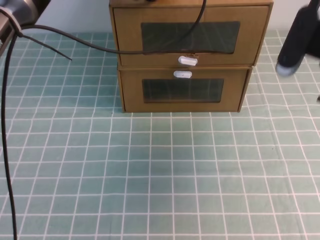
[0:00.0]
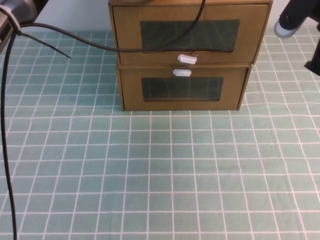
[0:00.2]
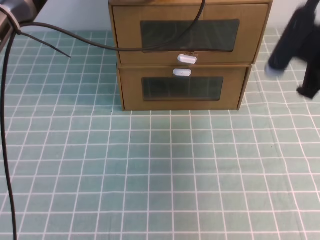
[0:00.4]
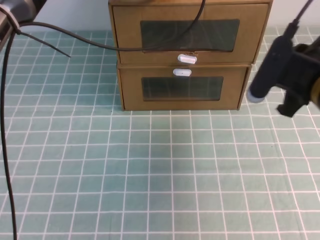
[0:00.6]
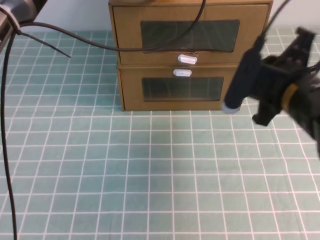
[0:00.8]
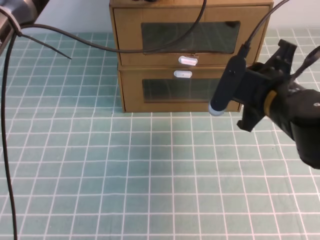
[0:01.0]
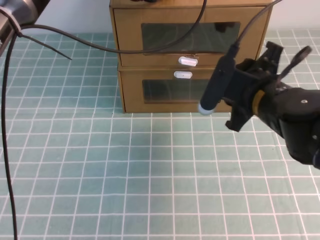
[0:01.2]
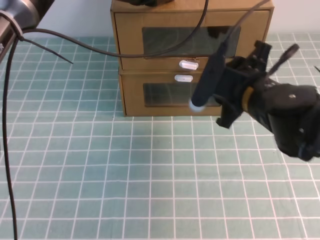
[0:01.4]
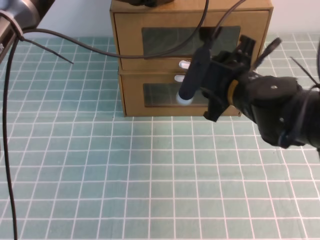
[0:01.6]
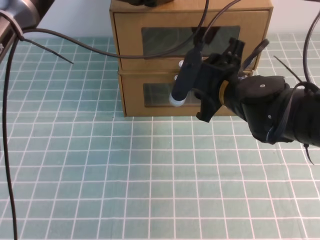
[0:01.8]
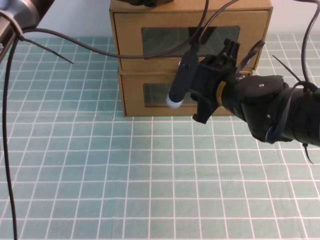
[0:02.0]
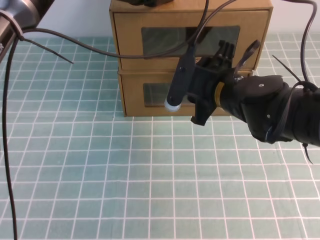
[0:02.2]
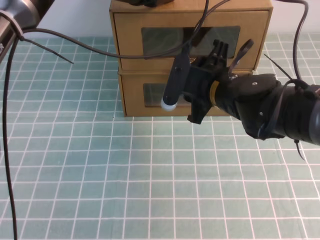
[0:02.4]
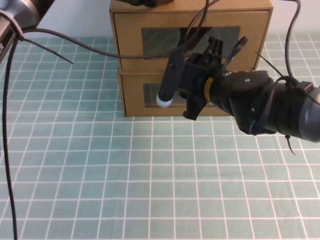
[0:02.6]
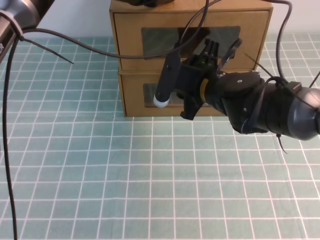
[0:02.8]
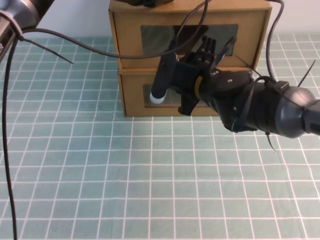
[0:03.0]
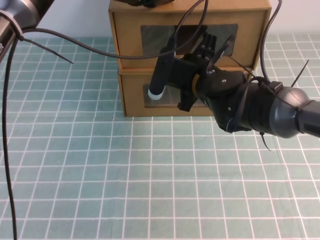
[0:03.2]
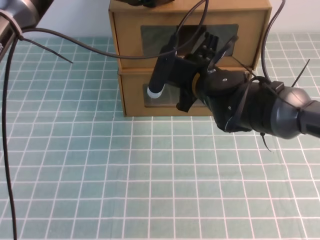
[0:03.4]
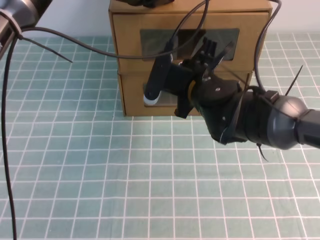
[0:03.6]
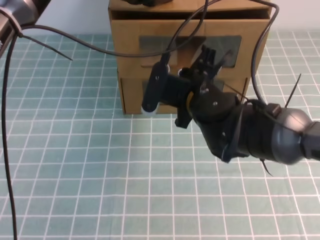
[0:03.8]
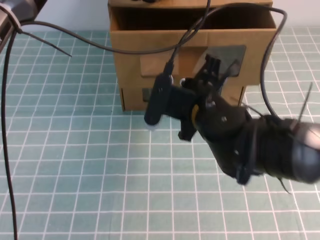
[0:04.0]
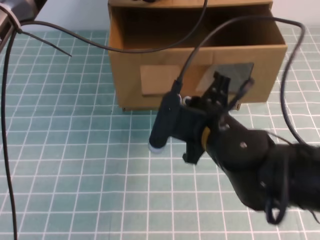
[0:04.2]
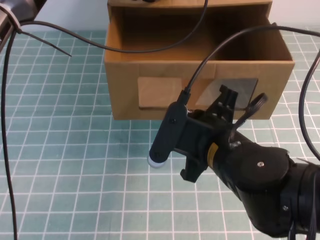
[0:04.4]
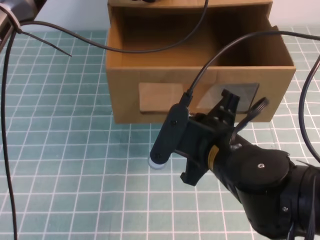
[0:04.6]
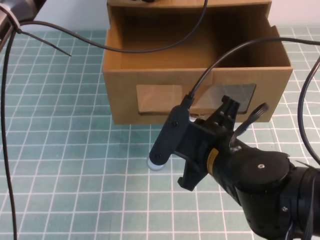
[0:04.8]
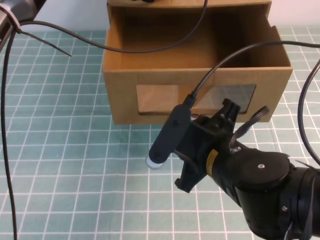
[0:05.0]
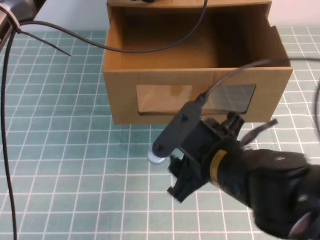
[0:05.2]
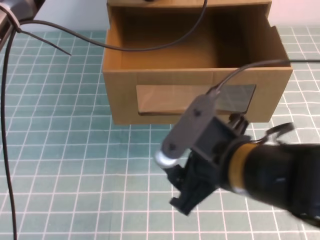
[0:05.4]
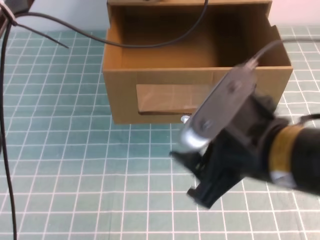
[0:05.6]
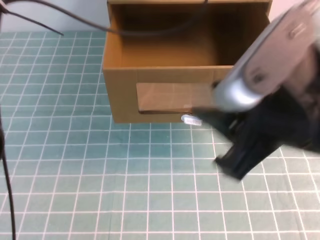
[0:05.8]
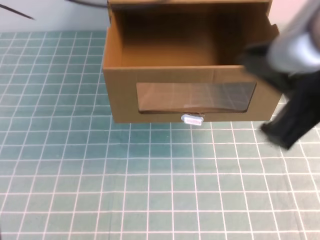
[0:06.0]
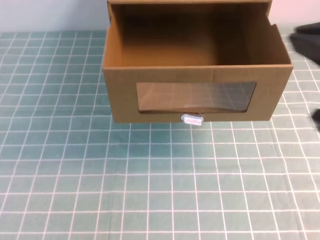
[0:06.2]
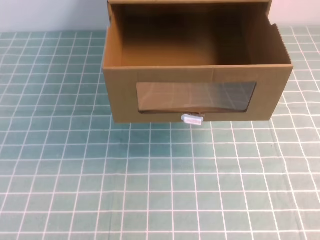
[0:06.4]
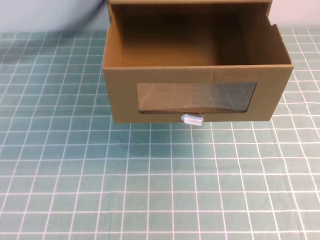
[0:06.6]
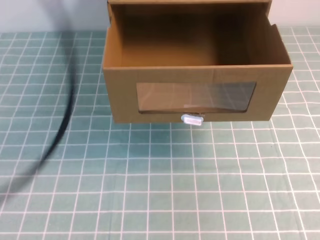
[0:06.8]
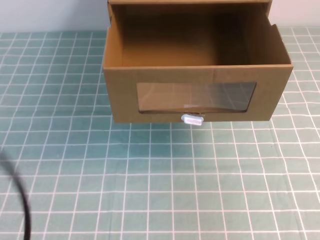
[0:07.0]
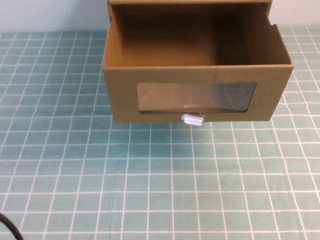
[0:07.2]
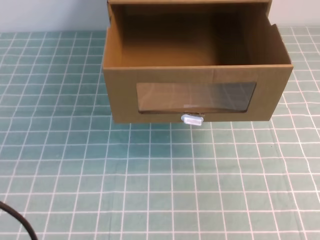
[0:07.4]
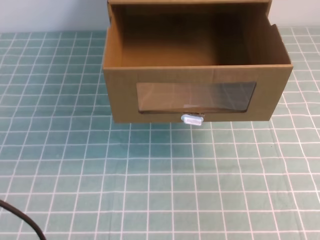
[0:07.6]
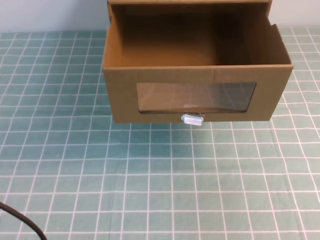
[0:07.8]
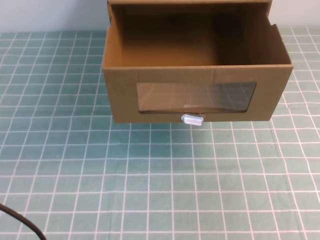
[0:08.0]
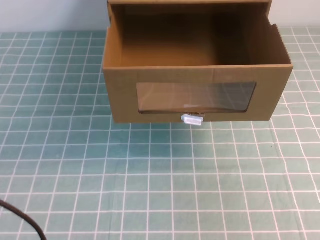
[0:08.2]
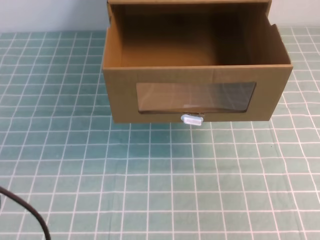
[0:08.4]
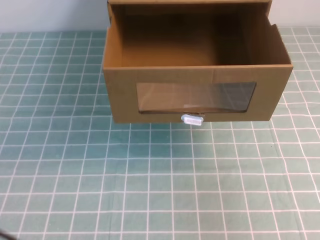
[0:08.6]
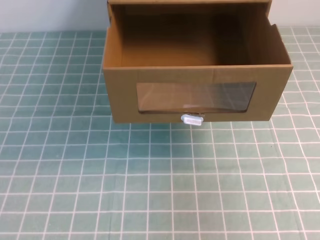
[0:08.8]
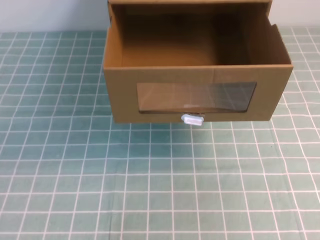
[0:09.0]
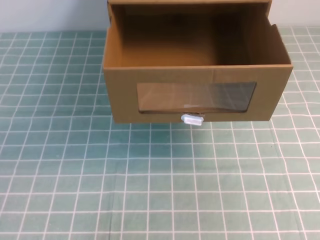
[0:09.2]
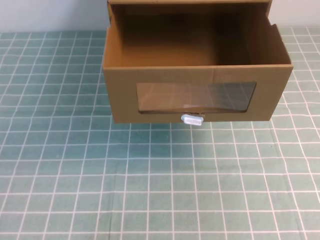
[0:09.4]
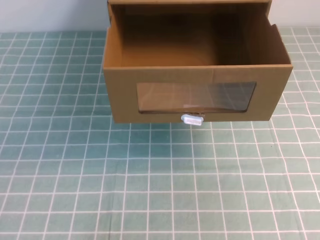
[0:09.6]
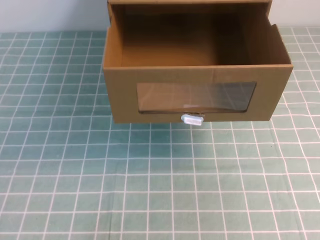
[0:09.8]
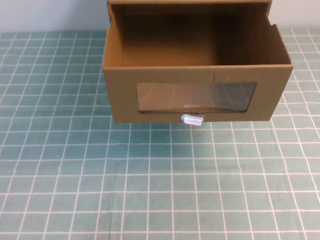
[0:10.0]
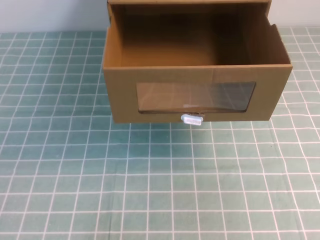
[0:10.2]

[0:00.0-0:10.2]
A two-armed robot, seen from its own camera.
Task of the whole recording: open the shoebox on the cyan tablecloth.
0:00.0 to 0:01.4: The right gripper heads to the left and downward, covering some 10 cm, and opens up.
0:01.4 to 0:03.0: The right gripper shifts about 10 cm to the left and forward.
0:03.0 to 0:04.4: The right gripper goes about 15 cm backward, and closes up.
0:04.4 to 0:05.8: The right gripper travels upward, backward and to the right by approximately 15 cm, and opens. The left gripper goes some 5 cm upward.
0:05.8 to 0:07.2: The right gripper travels to the right and backward by some 20 cm, and closes up. Meanwhile the left gripper heads backward and to the left, covering roughly 35 cm.

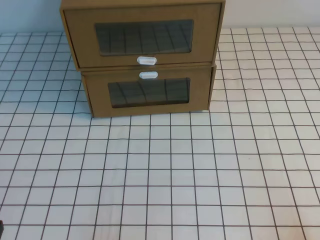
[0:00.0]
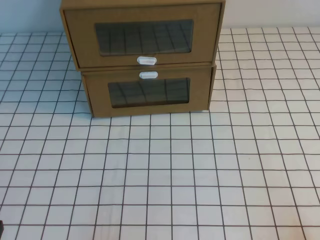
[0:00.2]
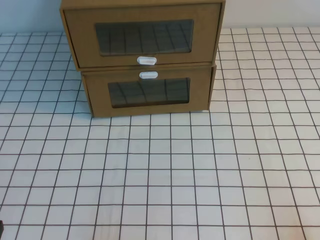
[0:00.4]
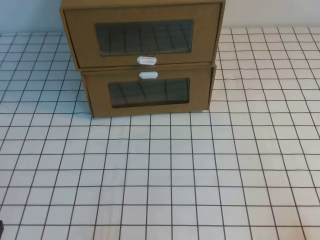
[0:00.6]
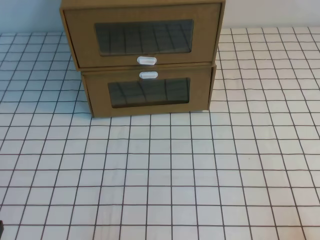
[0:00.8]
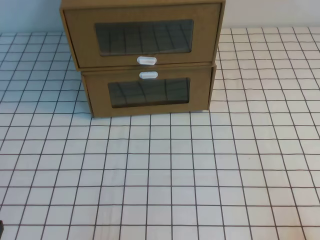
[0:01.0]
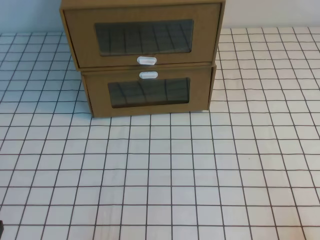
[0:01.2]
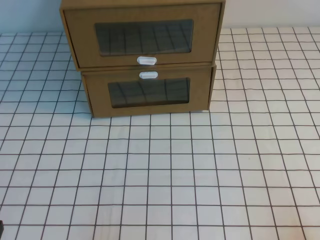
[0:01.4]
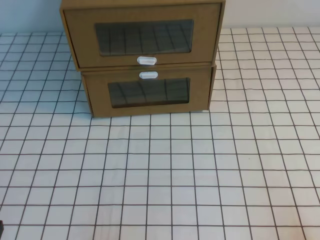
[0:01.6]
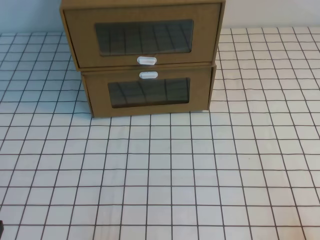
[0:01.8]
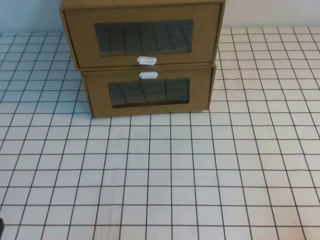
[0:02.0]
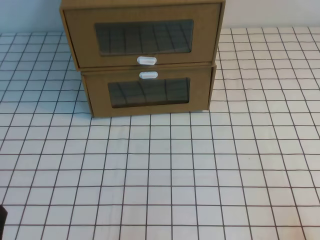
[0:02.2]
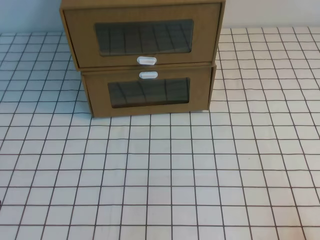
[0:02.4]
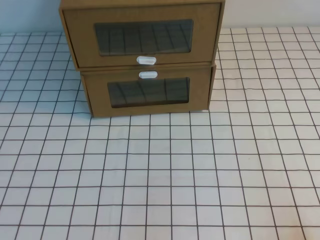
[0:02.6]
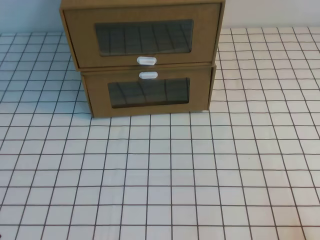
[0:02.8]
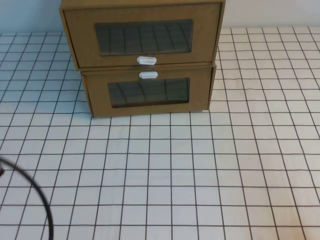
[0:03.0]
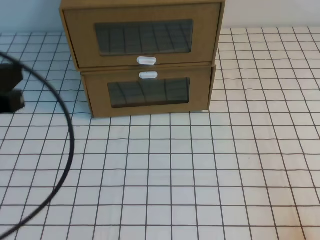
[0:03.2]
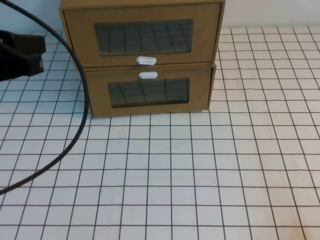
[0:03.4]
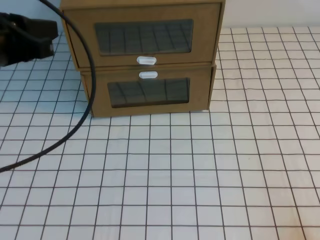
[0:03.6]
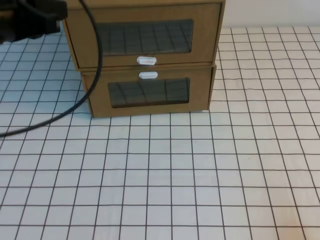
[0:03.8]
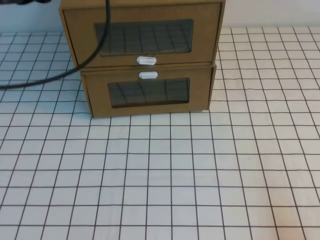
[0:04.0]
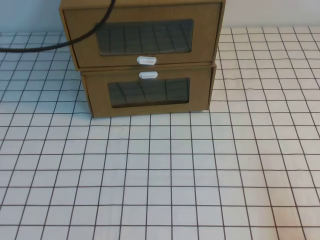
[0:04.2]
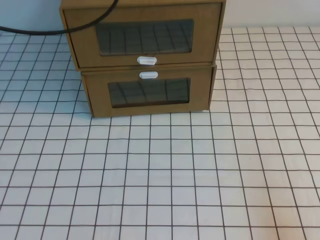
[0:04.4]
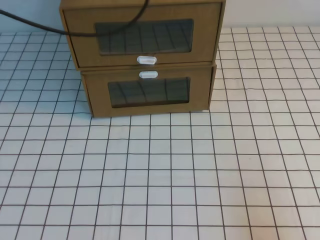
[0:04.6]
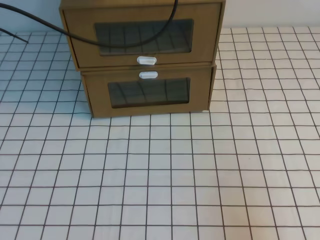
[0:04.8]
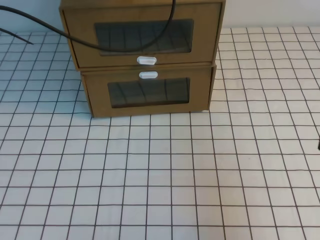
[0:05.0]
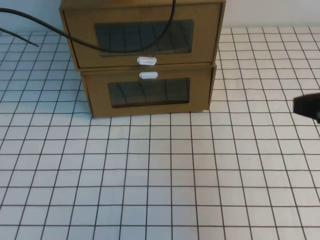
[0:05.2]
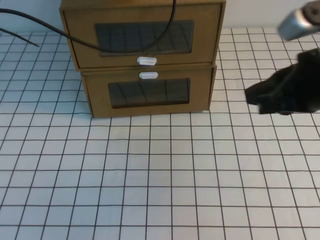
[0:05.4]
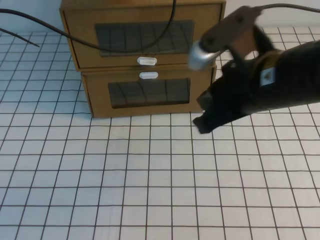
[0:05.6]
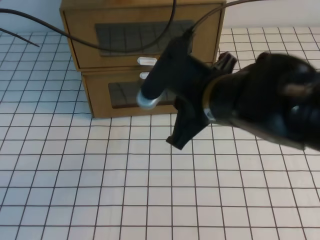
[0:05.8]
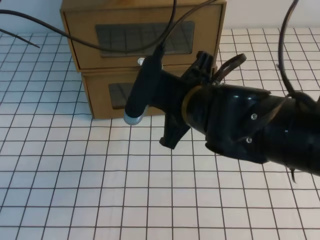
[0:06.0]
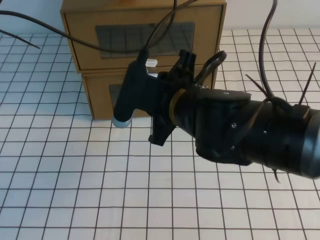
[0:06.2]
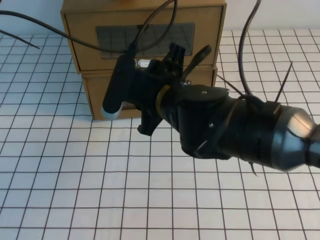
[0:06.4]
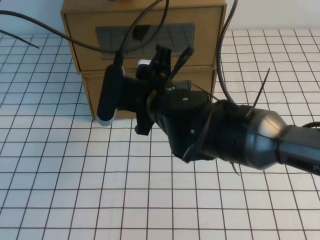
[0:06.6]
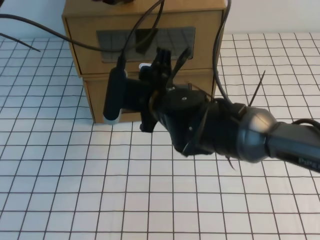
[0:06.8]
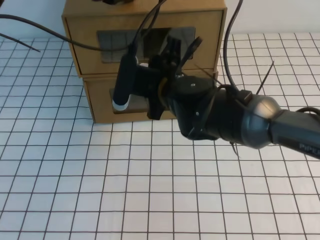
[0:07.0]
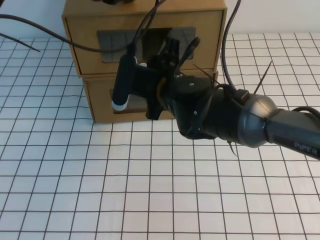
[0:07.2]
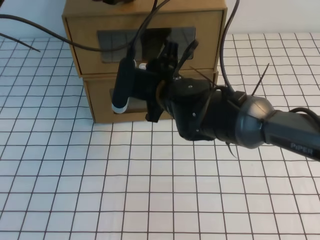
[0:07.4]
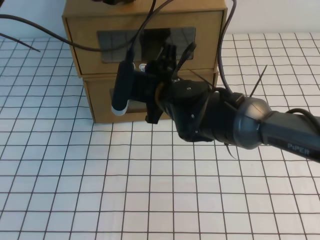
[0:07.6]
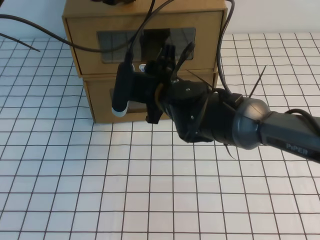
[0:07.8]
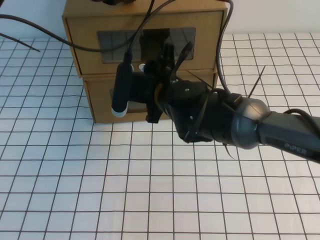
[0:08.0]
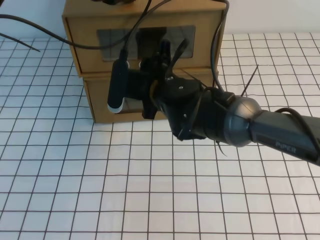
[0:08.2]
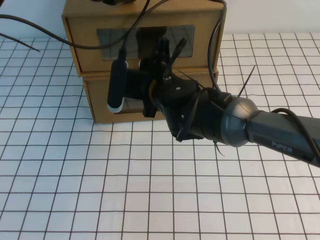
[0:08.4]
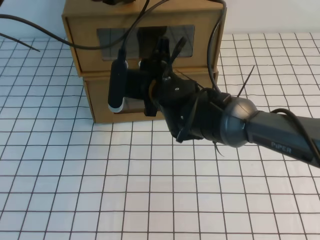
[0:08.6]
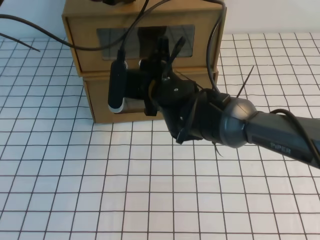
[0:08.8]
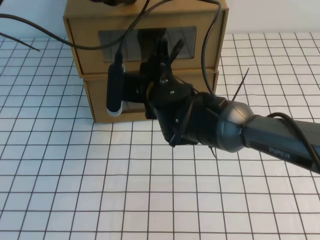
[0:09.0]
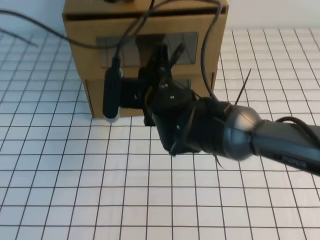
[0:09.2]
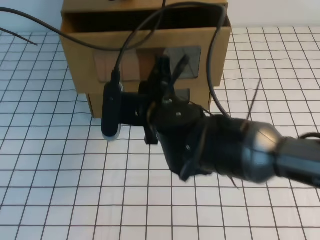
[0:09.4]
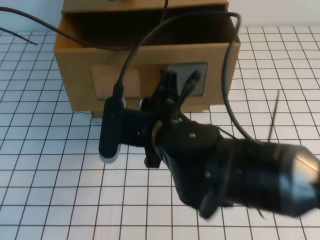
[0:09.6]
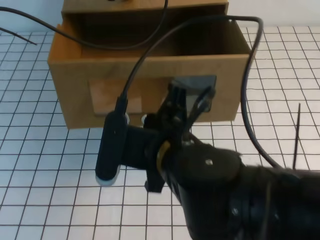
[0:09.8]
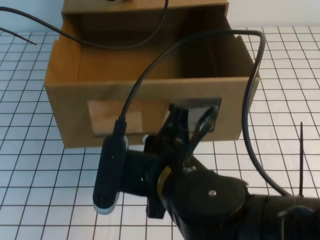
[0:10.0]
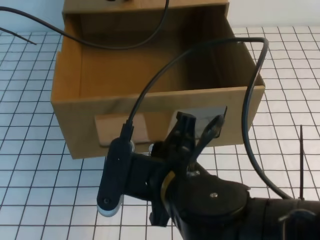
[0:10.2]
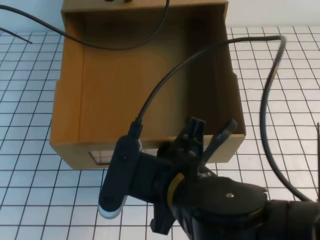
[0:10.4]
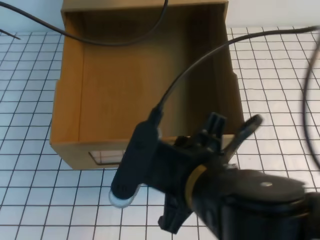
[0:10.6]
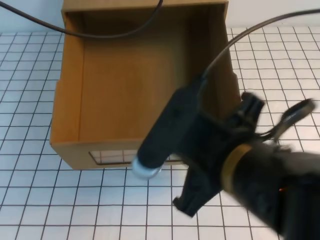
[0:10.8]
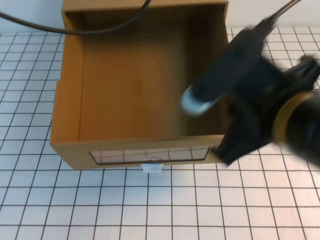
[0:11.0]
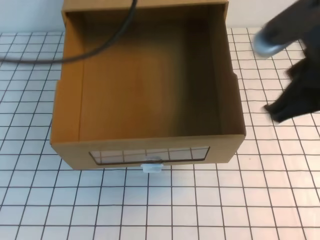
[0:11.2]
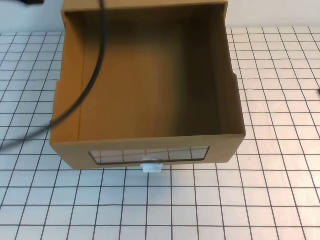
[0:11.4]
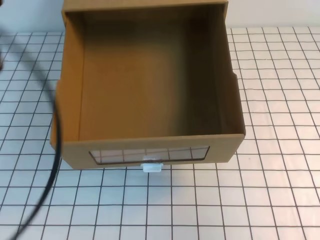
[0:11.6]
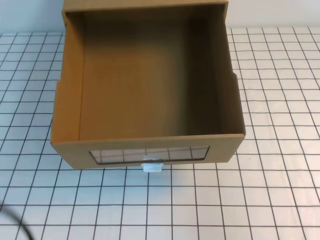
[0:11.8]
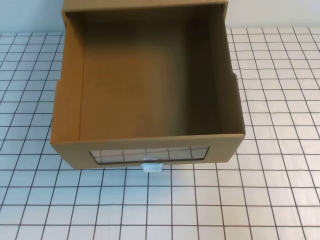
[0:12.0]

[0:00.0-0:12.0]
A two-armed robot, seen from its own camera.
Task of the whole recording: open the shoebox on the white tablecloth.
0:00.0 to 0:01.6: Both grippers stay put.
0:01.6 to 0:03.0: The left gripper travels upward by approximately 15 cm.
0:03.0 to 0:04.4: The left gripper travels forward and upward by some 30 cm.
0:04.4 to 0:06.0: The left gripper goes roughly 5 cm to the right, while the right gripper goes some 35 cm to the left and forward.
0:06.0 to 0:07.6: The right gripper is displaced forward and downward by roughly 10 cm, and opens its fingers.
0:07.6 to 0:09.0: The right gripper closes up.
0:09.0 to 0:10.4: The right gripper travels backward by approximately 20 cm, and opens its fingers.
0:10.4 to 0:12.0: The right gripper travels to the right by about 25 cm, and closes up. The left gripper goes approximately 35 cm backward.
